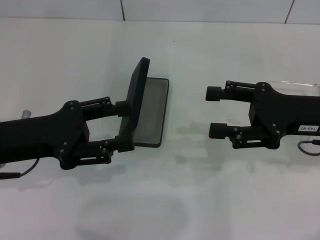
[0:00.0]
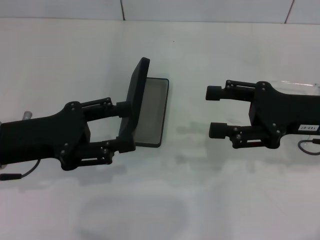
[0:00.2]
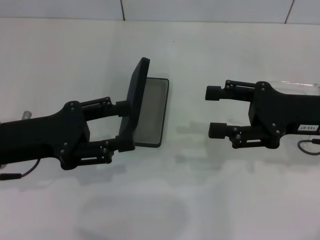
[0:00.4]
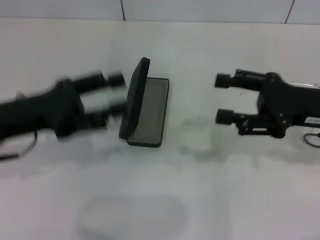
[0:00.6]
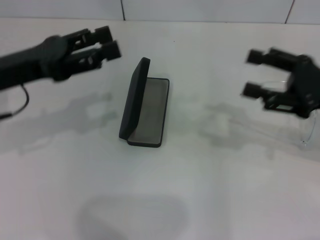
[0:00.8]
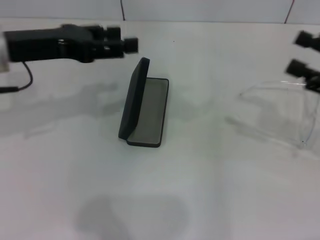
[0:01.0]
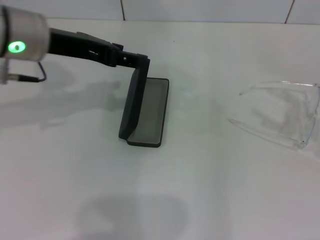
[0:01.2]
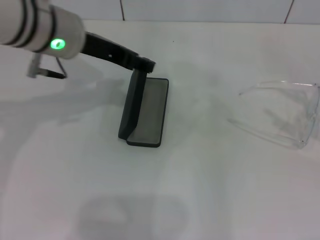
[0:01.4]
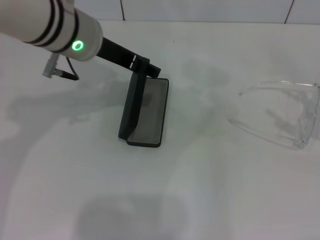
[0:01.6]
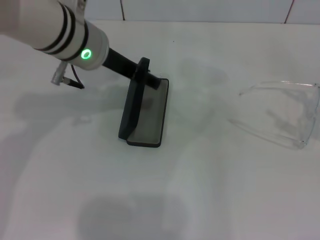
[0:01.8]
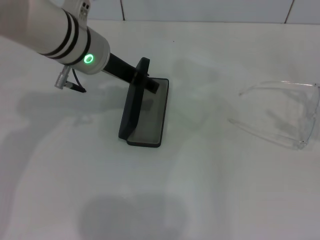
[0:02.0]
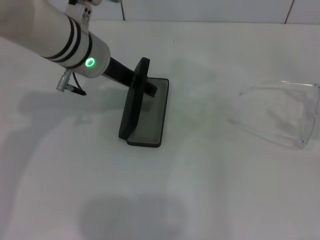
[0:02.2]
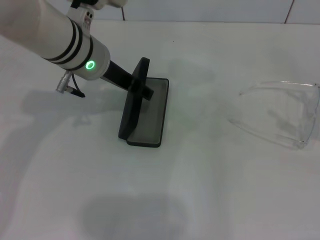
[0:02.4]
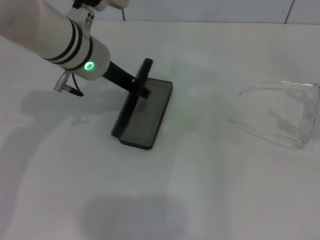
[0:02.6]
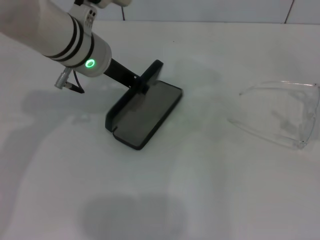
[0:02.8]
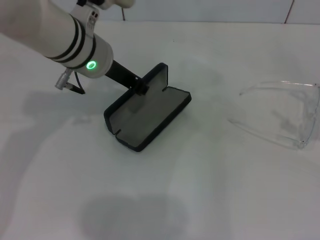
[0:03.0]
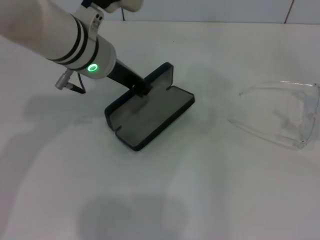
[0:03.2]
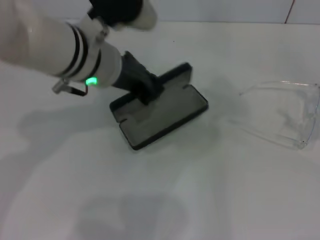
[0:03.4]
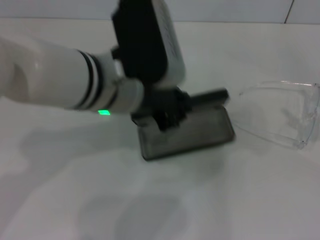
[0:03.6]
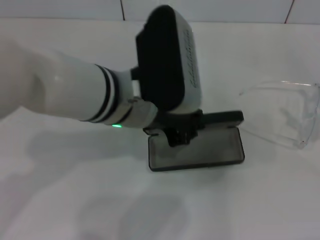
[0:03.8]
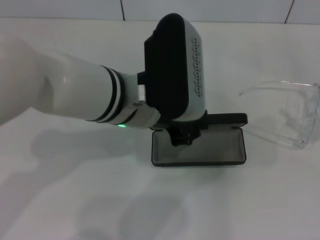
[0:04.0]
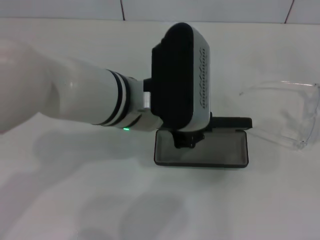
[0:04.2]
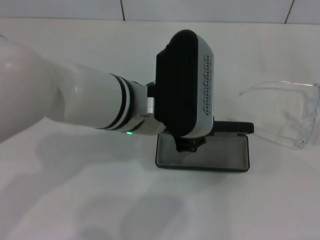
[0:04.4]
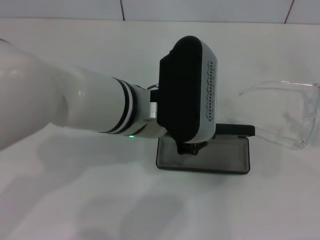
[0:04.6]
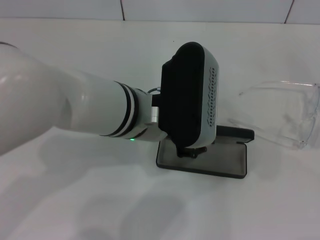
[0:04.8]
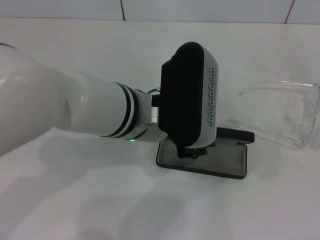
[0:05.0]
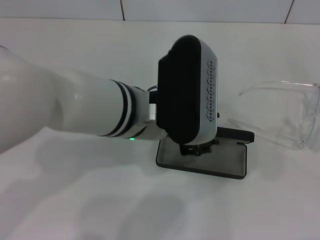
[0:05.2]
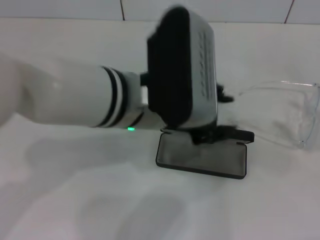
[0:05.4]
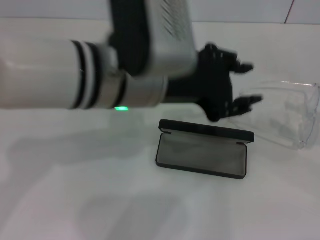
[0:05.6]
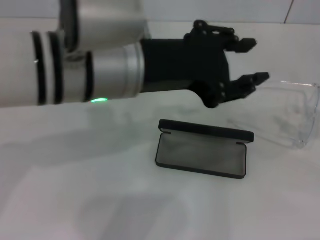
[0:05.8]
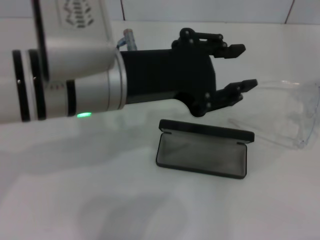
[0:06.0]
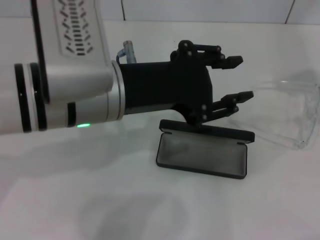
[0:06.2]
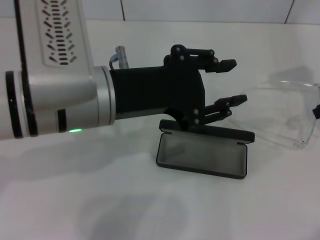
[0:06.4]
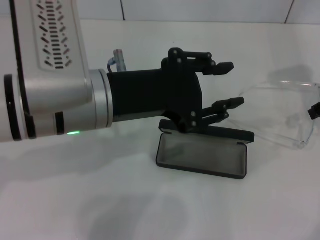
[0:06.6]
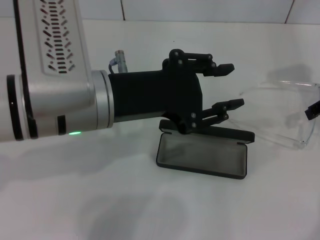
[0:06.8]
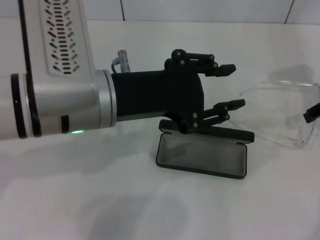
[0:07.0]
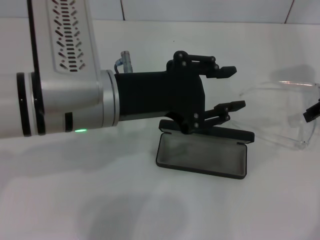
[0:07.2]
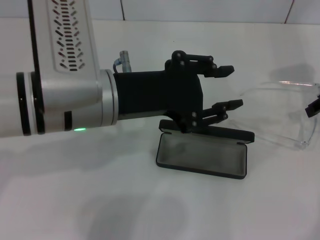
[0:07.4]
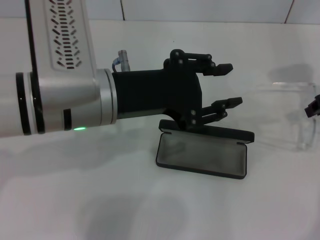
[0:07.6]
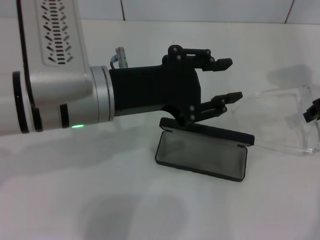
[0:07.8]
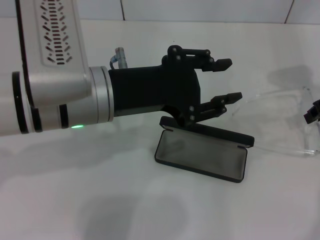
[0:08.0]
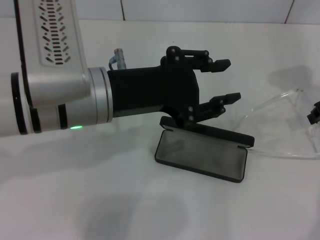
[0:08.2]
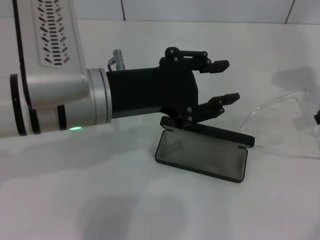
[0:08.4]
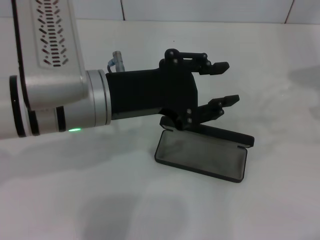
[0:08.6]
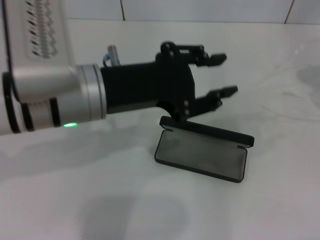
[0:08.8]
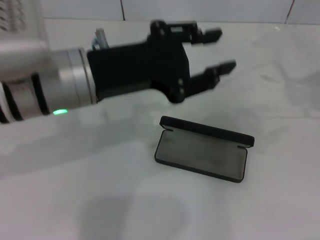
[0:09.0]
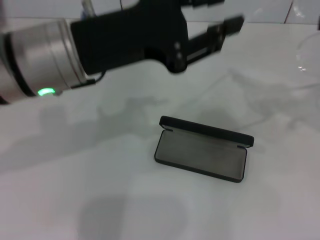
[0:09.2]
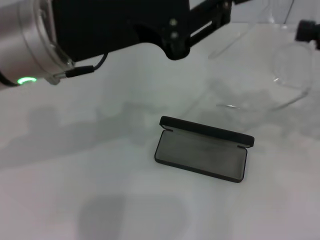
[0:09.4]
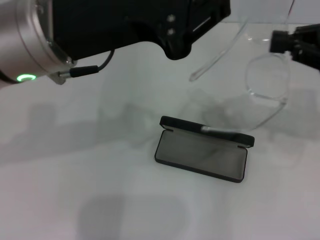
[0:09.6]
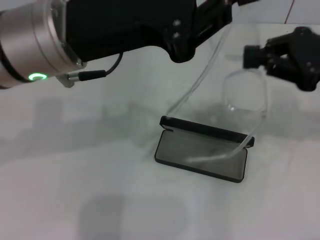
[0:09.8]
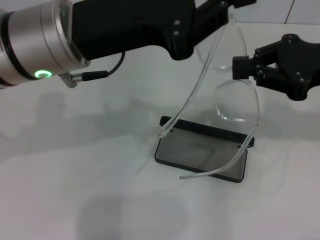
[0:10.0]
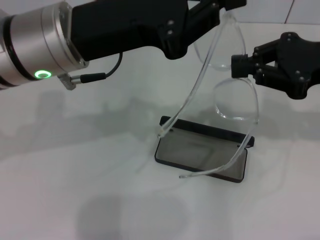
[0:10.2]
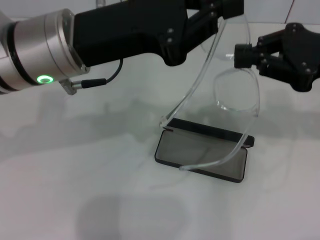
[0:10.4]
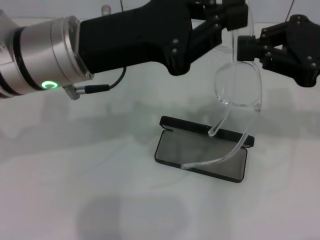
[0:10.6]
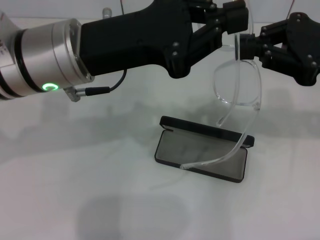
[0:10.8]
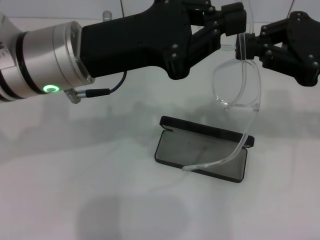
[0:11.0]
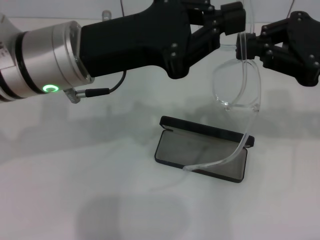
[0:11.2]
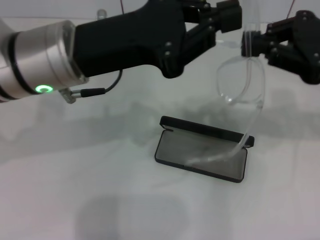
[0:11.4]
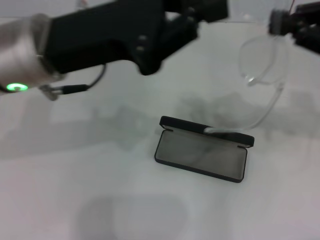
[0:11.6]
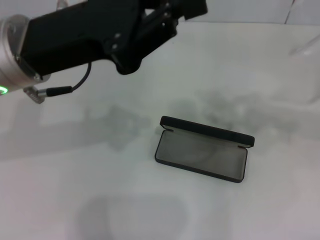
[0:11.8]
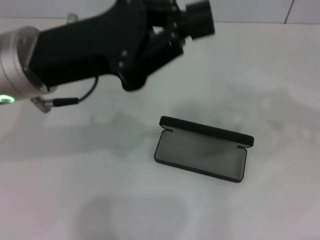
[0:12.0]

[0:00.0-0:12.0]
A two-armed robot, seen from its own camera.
Step, 0:00.0 to 0:03.0: Grab the glasses case with your left hand.
Step, 0:03.2 to 0:05.2: Place the glasses case in the center of the table with your left hand.
Step, 0:05.4 to 0:08.2: Grab the eyeglass frame with your right hand.
0:00.0 to 0:01.6: The right gripper moves to the right, approximately 15 cm, while the left gripper heads to the right, forward and upward, covering roughly 20 cm.
0:01.6 to 0:03.0: The left gripper closes up.
0:03.0 to 0:04.4: The left gripper moves backward and to the right, some 10 cm.
0:04.4 to 0:06.0: The left gripper travels upward and to the left by about 10 cm, and opens up. The right gripper shifts about 15 cm upward and forward.
0:06.0 to 0:07.6: The right gripper travels downward and forward by about 10 cm, and closes.
0:07.6 to 0:09.0: The right gripper heads upward, backward and to the right, covering approximately 10 cm.
0:09.0 to 0:10.4: The left gripper closes, while the right gripper is displaced to the left by approximately 10 cm.
0:10.4 to 0:12.0: The right gripper travels to the right by about 10 cm.

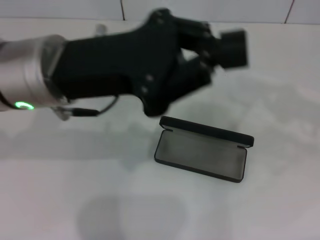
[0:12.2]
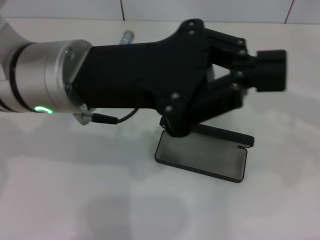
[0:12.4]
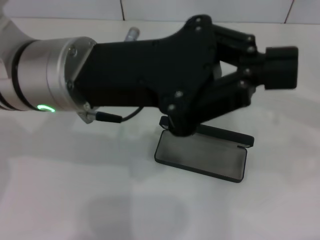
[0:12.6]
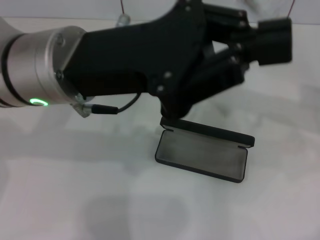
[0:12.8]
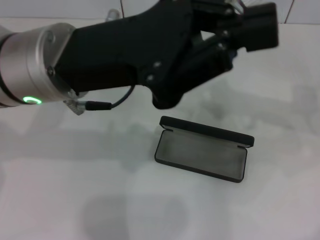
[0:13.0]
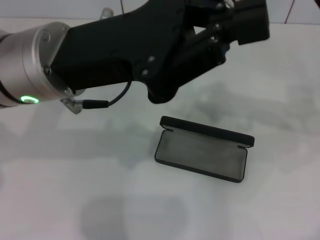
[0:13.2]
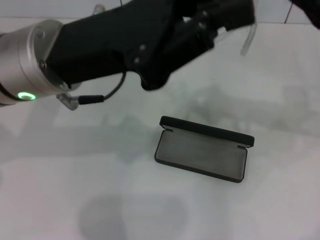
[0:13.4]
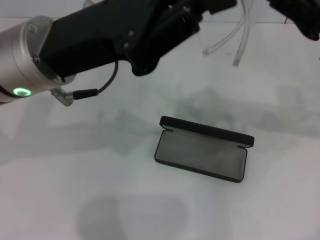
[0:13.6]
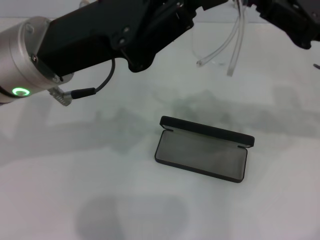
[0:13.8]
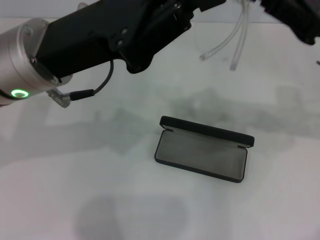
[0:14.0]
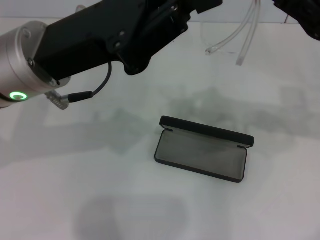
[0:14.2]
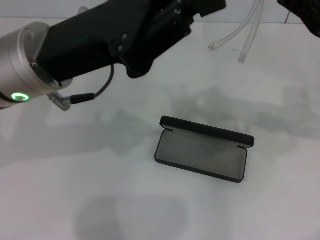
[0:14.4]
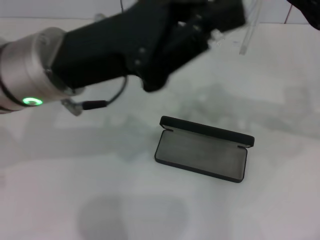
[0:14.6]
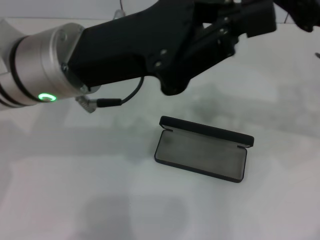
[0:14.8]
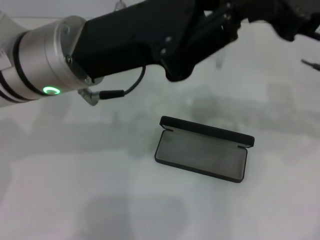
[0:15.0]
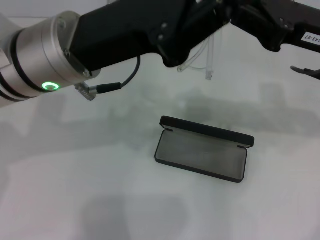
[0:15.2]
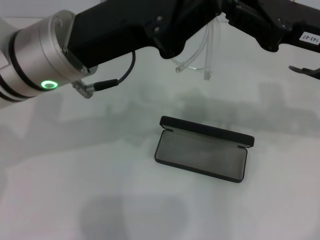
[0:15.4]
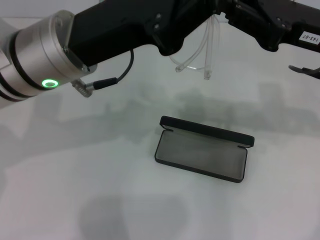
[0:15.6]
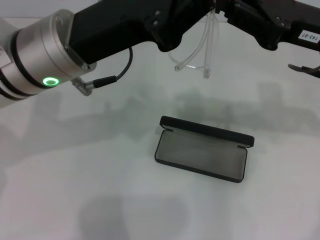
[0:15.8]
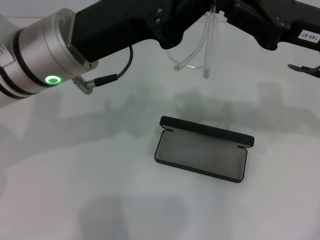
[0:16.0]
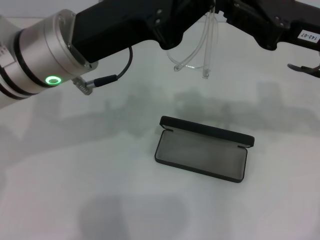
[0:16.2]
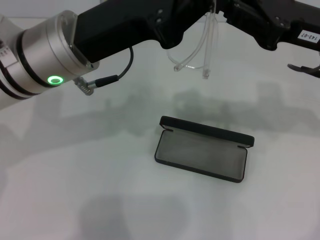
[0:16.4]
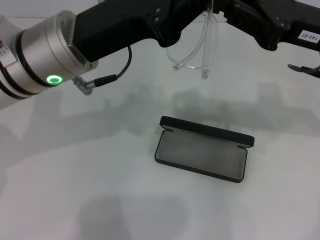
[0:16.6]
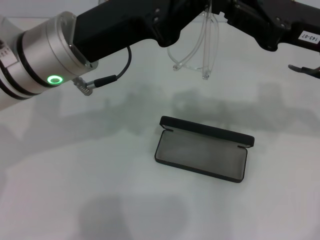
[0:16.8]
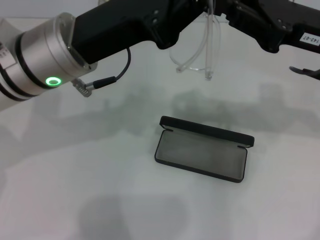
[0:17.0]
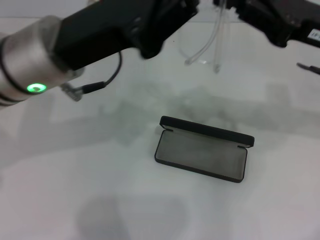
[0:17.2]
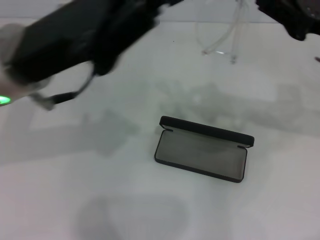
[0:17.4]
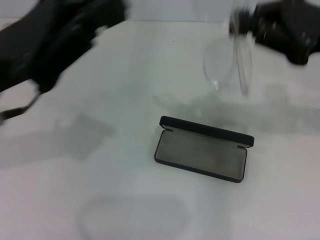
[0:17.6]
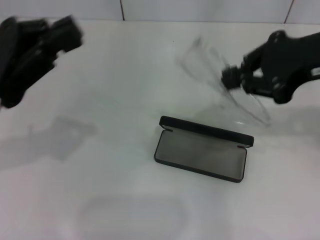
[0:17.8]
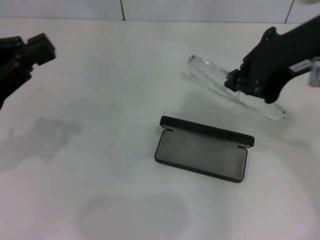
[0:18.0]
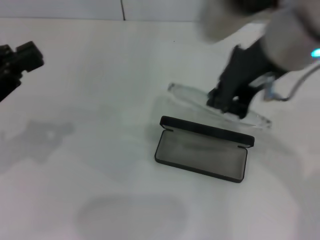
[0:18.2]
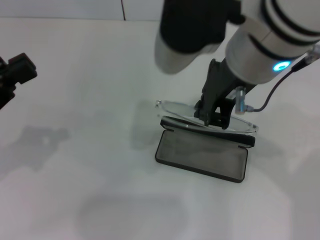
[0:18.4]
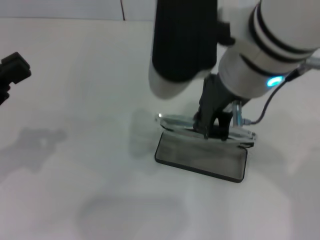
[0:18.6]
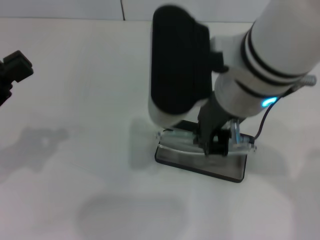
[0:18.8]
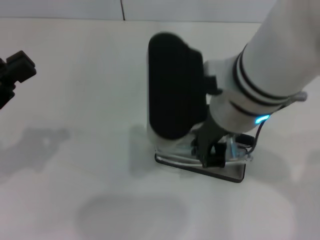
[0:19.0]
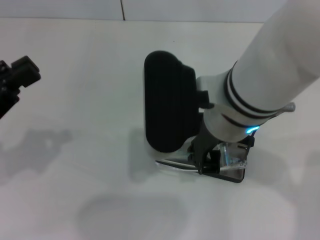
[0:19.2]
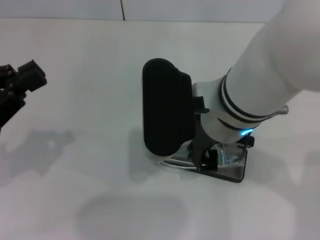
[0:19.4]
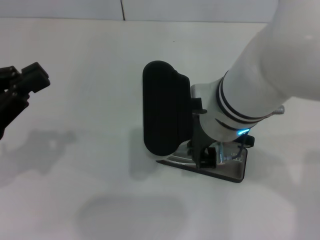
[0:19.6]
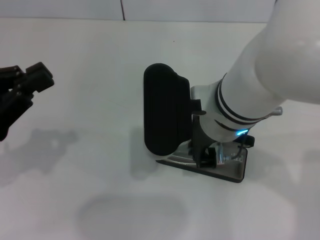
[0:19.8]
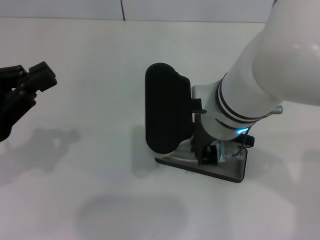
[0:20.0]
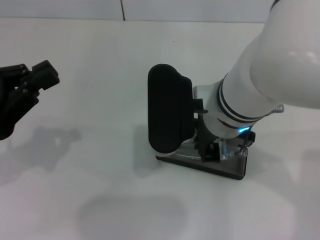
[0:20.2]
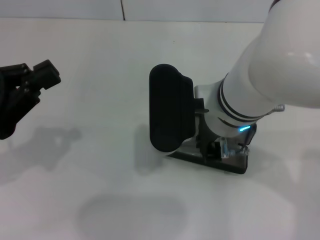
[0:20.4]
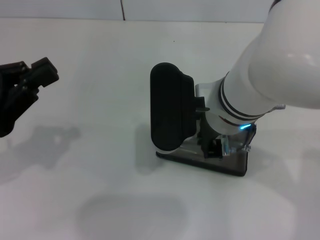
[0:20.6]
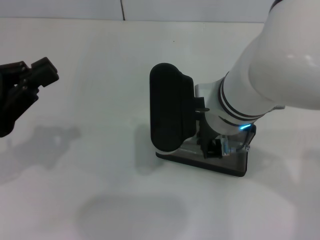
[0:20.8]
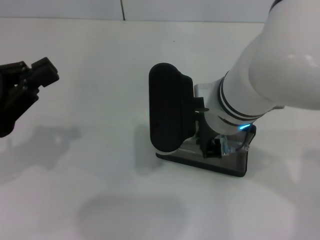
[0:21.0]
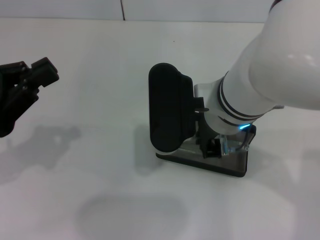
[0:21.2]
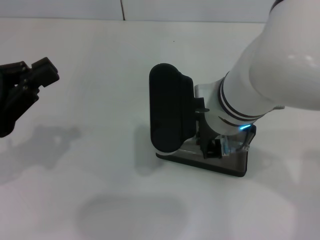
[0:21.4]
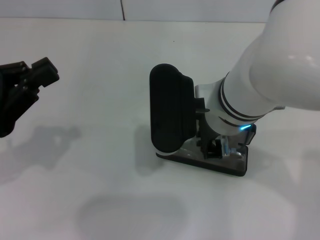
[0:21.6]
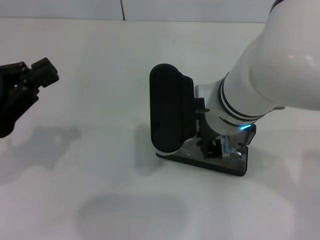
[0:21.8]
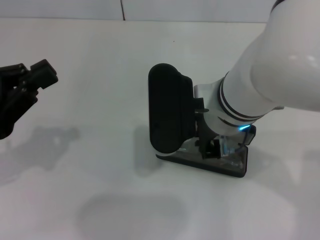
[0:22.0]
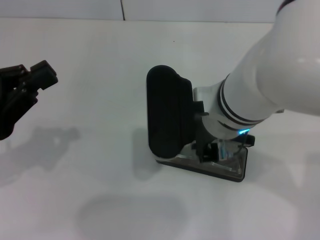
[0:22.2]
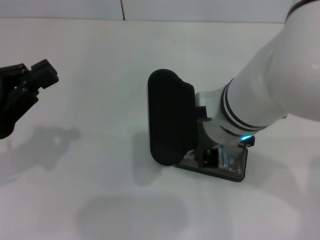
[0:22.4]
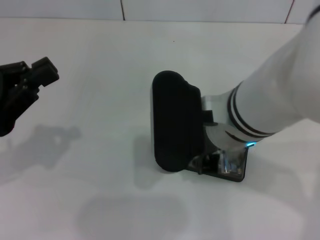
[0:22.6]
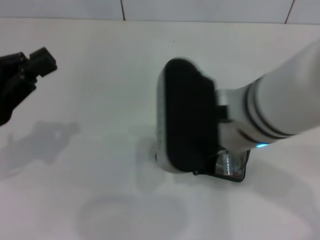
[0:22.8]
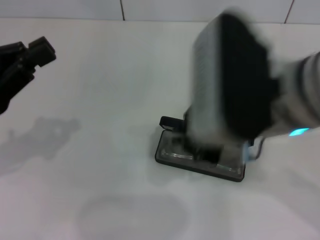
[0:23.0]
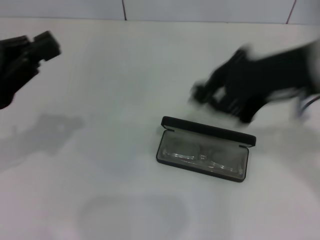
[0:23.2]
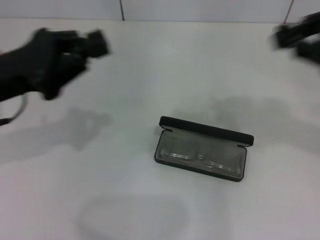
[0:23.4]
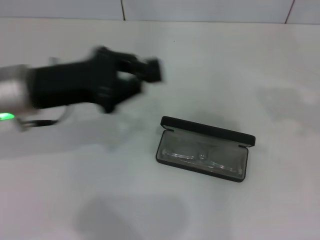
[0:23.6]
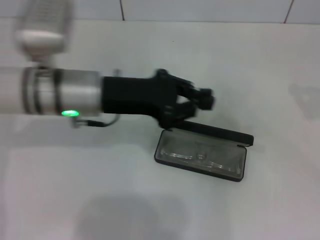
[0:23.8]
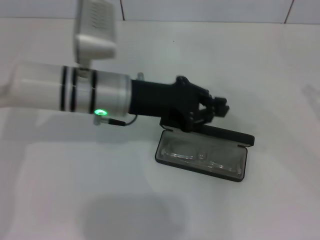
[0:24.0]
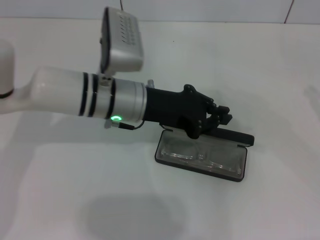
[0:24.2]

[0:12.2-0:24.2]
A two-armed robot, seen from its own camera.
Step, 0:14.2 to 0:22.0: Put the glasses into the case with your right hand.
0:12.2 to 0:13.8: The right gripper goes roughly 15 cm to the left and downward.
0:13.8 to 0:16.6: There are only small adjustments of the grippers.
0:16.6 to 0:18.2: The left gripper heads to the left and backward, covering some 20 cm. Meanwhile the right gripper goes about 15 cm to the left and upward.
0:18.2 to 0:19.8: The right gripper heads downward and to the left, covering some 10 cm.
0:19.8 to 0:22.6: The grippers make only small movements.
0:22.6 to 0:24.2: The left gripper travels to the right and forward by some 25 cm. Meanwhile the right gripper is displaced to the right by approximately 35 cm.
